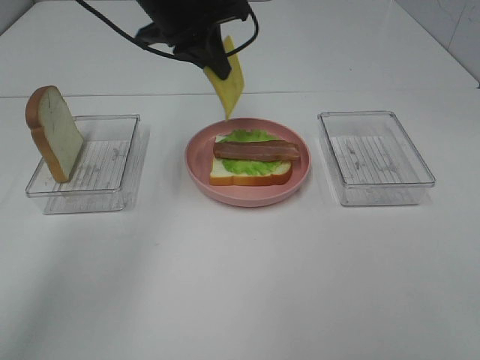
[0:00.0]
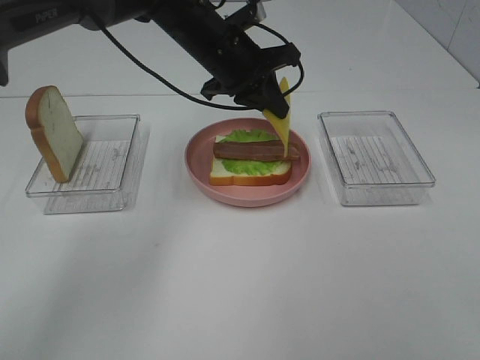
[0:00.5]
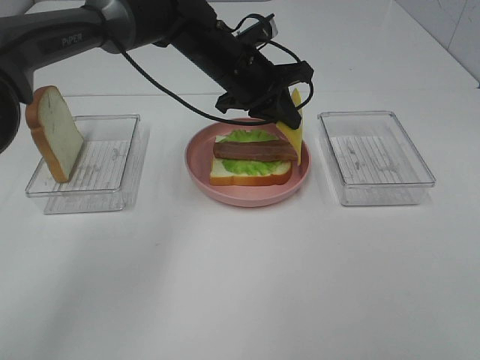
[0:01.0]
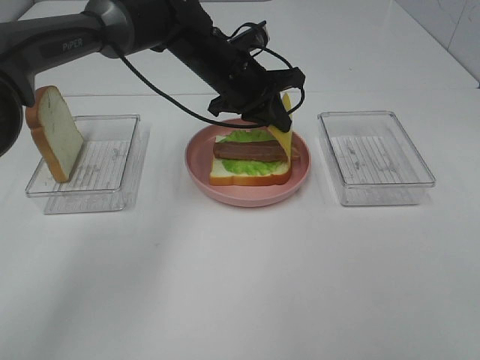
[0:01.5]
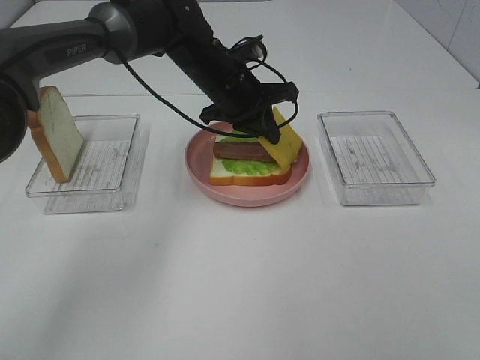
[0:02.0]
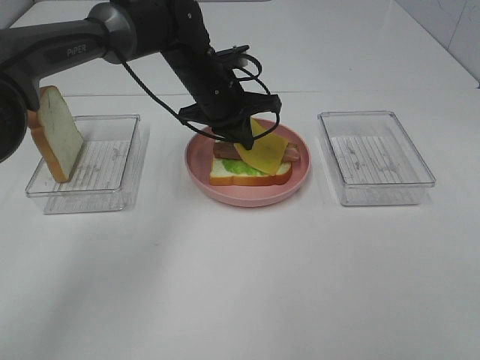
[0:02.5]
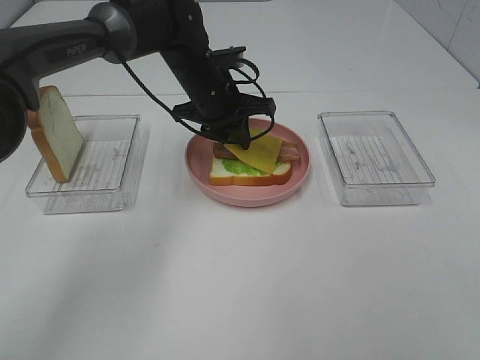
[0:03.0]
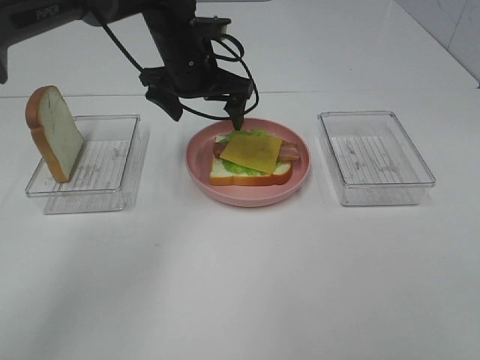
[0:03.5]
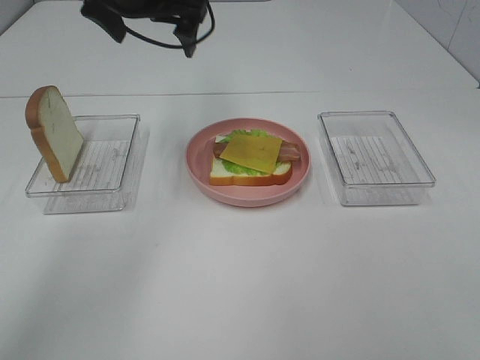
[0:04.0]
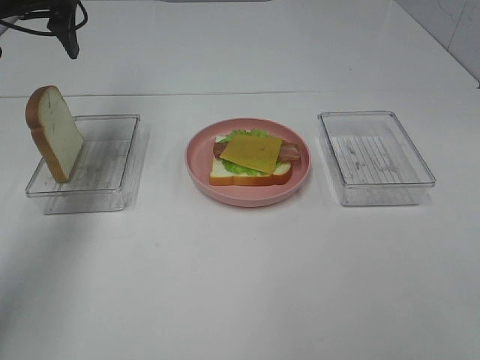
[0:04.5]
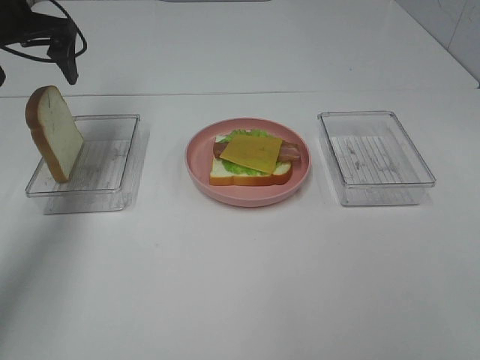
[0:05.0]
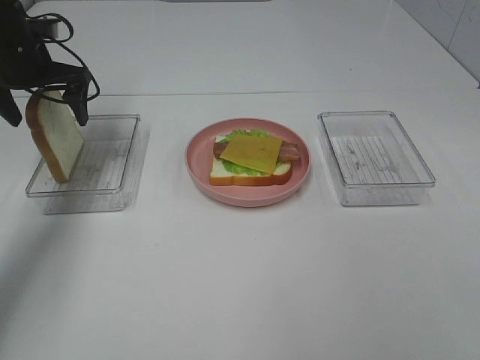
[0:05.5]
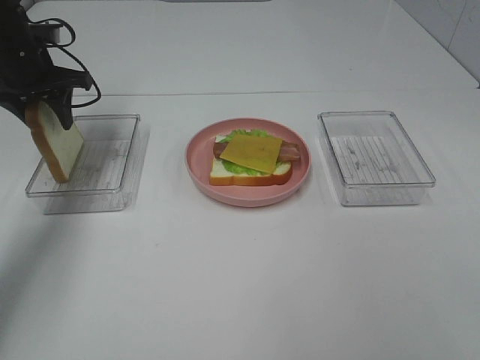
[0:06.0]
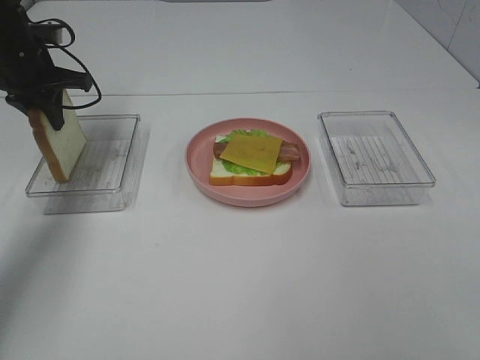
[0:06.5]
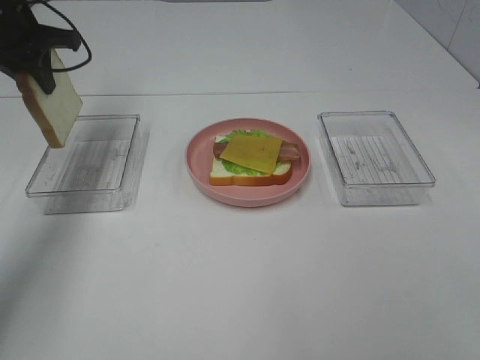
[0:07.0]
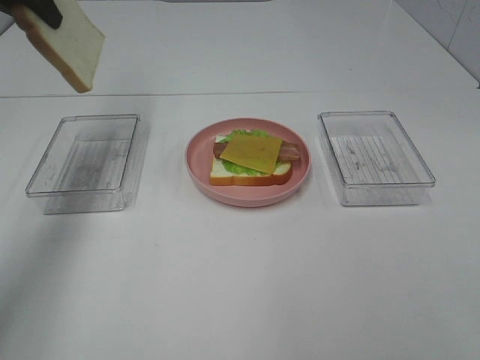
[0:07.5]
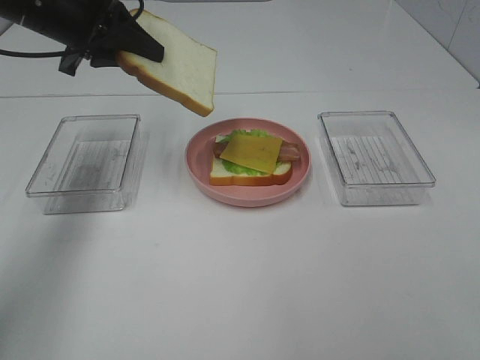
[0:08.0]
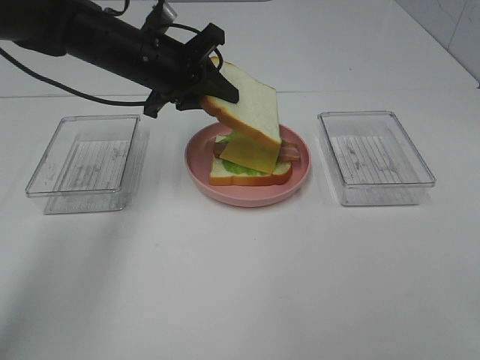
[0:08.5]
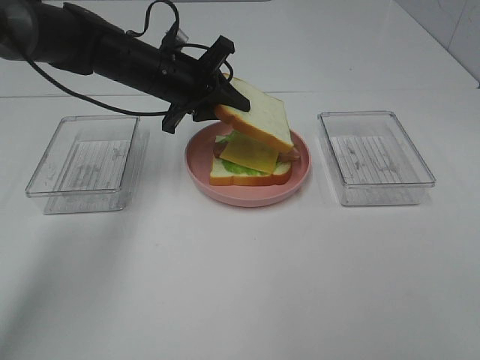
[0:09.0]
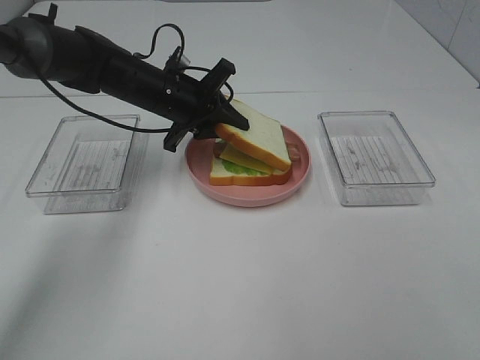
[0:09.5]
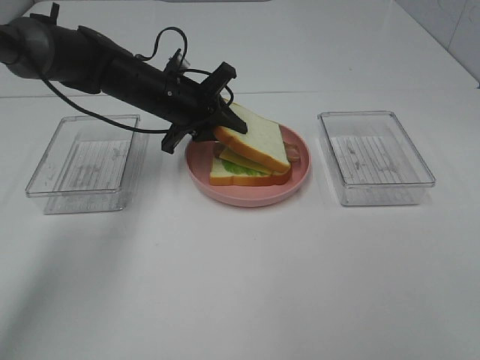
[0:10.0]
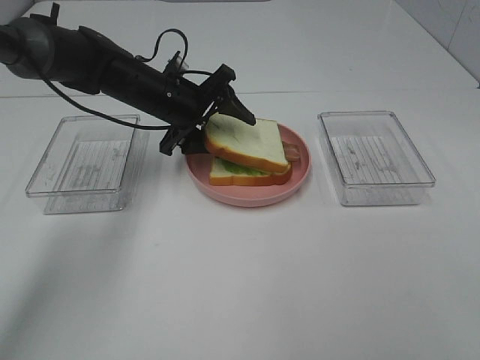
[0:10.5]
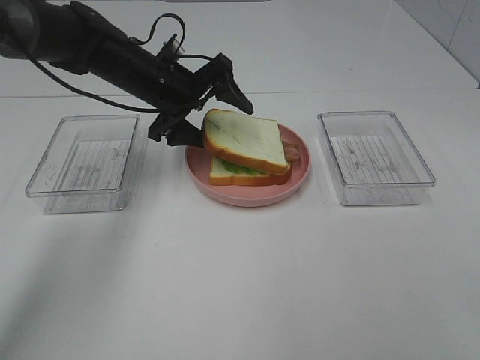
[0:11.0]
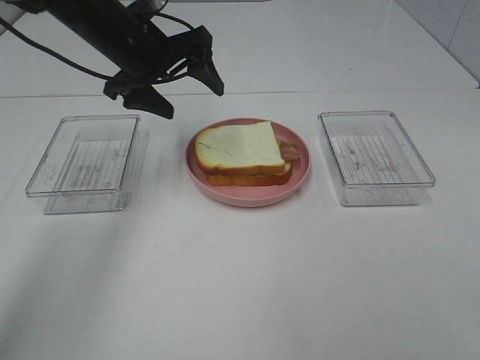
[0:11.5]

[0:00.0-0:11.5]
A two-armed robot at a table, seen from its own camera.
Task of the whole recording: Make sandwiches.
Step, 0:00.0 to 0:03.0: Left hand:place the cheese slice on top of the bacon.
Step, 0:03.5 to 0:06.5: Left hand:grab the bread slice.
Step, 0:07.0 to 0:11.0: Left hand:place the bread slice on the cheese slice.
0:00.0 to 0:02.0: The left gripper is displaced downward and to the right by roughly 15 cm.
0:02.0 to 0:04.0: The left gripper shifts some 20 cm upward and to the left, and opens up.
0:04.0 to 0:06.0: The left gripper moves to the left and downward, approximately 20 cm, and closes its fingers.
0:06.0 to 0:07.5: The left gripper shifts approximately 15 cm upward.
0:07.5 to 0:09.5: The left gripper travels downward and to the right by about 25 cm.
0:09.5 to 0:11.5: The left gripper moves upward, some 10 cm, and opens.

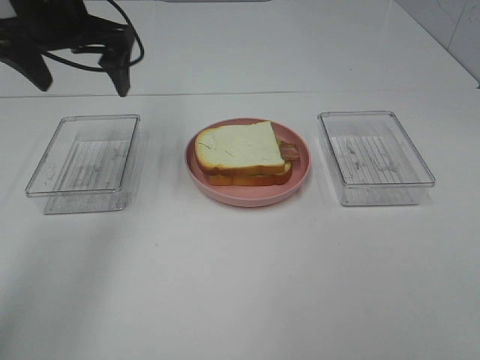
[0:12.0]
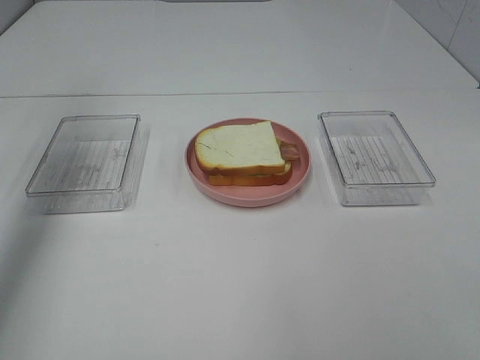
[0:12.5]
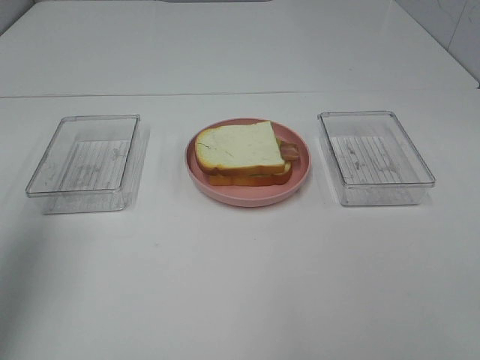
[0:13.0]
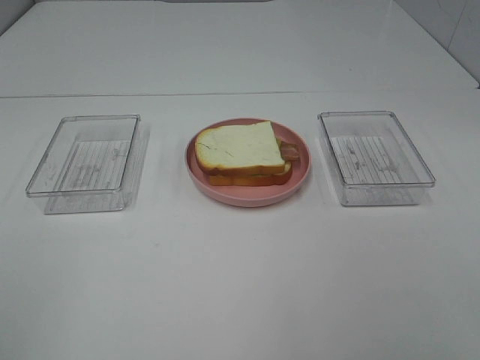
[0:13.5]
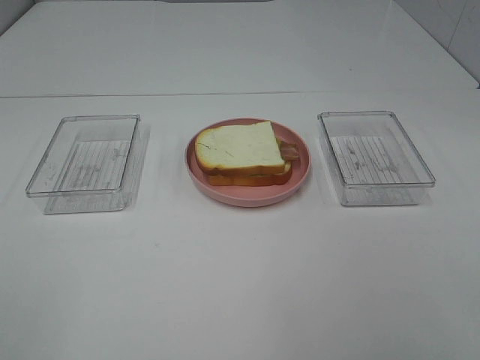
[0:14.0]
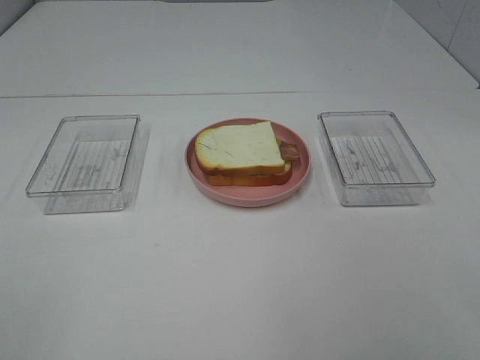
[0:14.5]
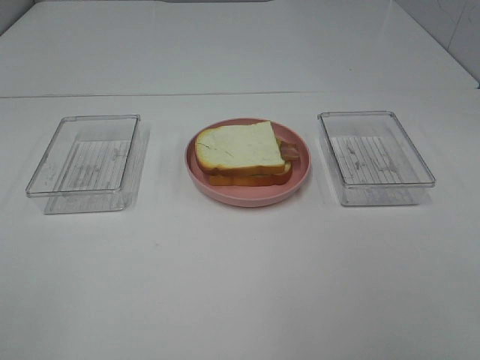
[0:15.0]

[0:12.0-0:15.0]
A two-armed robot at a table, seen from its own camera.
Task of the whole recording: Make sandwiches.
0:12.0 to 0:13.5: The left gripper heads backward, covering some 40 cm.

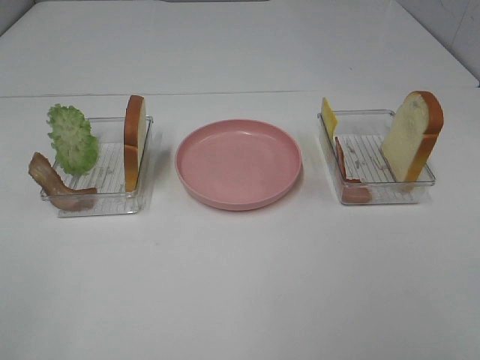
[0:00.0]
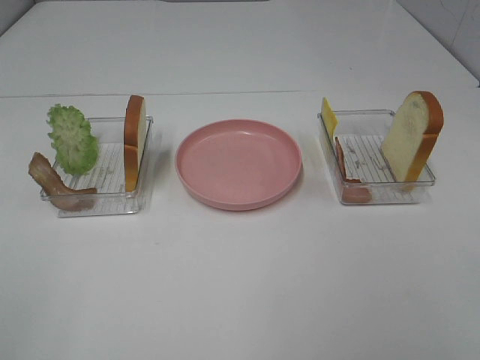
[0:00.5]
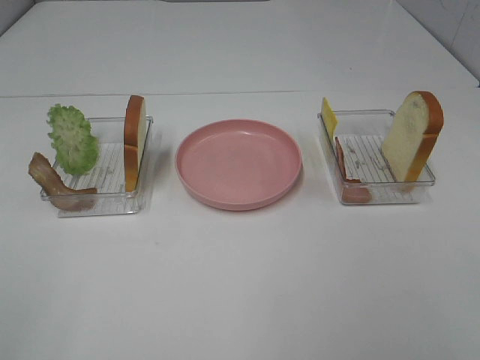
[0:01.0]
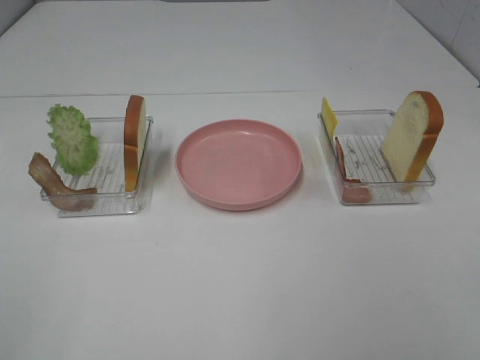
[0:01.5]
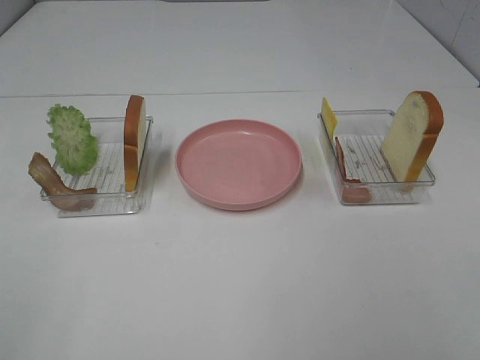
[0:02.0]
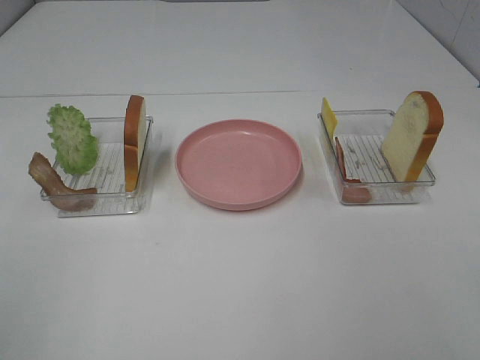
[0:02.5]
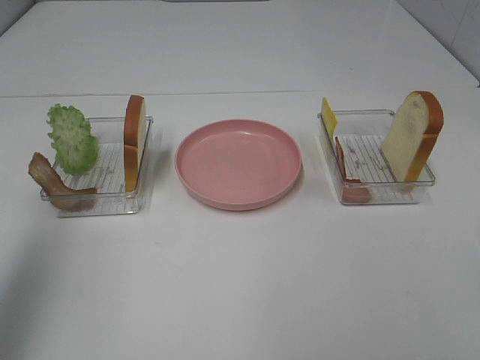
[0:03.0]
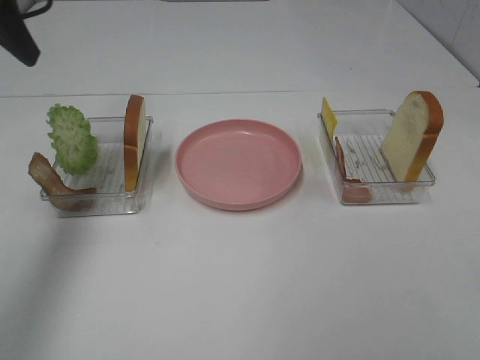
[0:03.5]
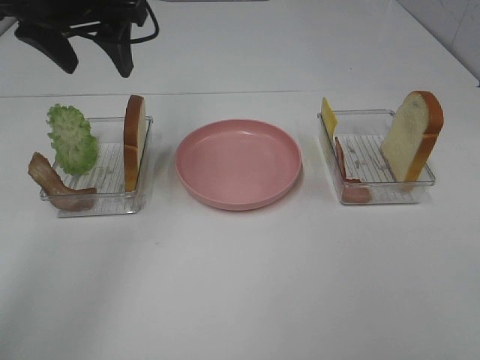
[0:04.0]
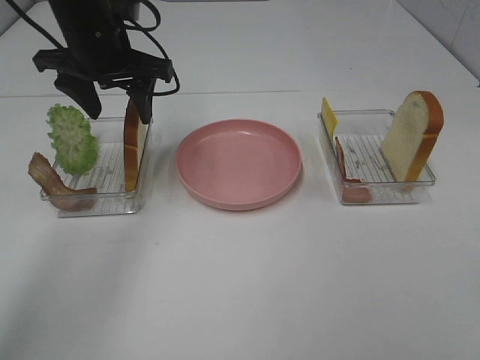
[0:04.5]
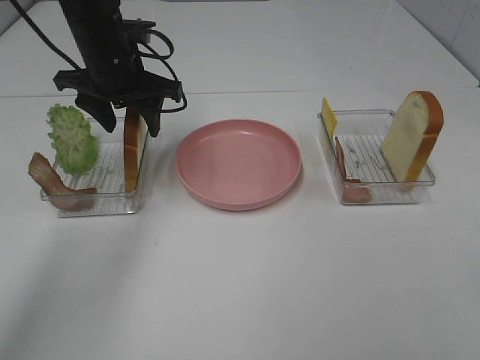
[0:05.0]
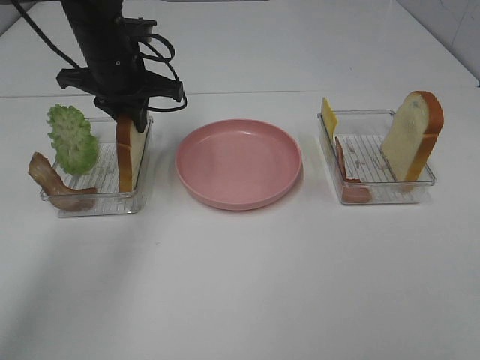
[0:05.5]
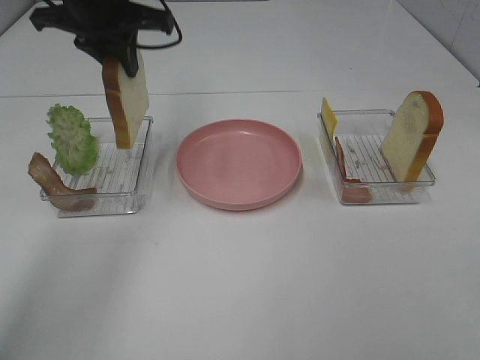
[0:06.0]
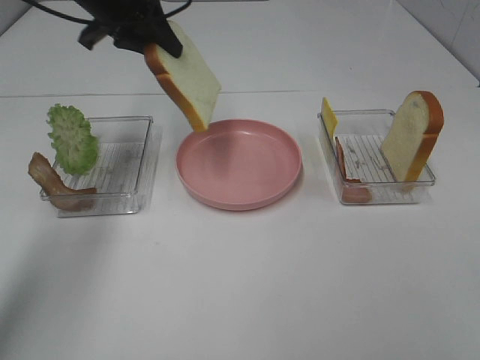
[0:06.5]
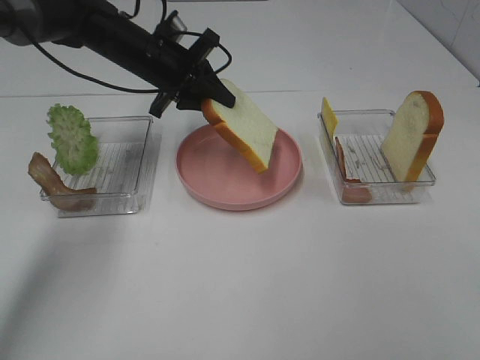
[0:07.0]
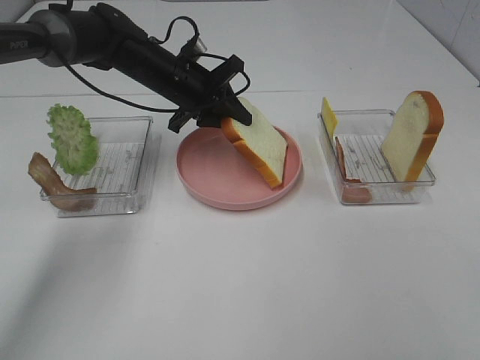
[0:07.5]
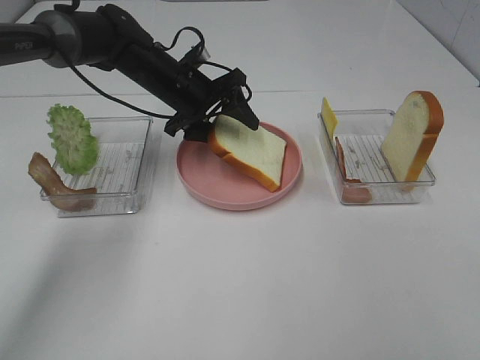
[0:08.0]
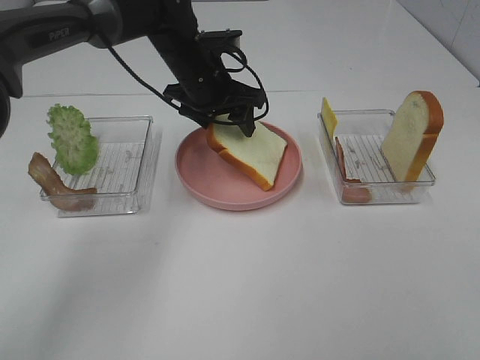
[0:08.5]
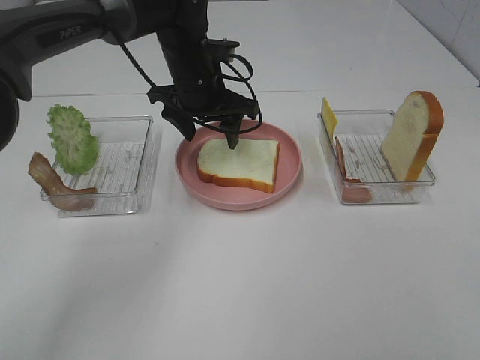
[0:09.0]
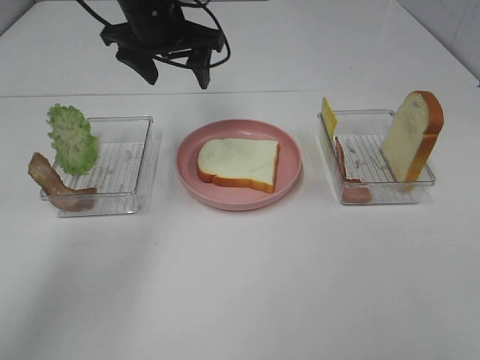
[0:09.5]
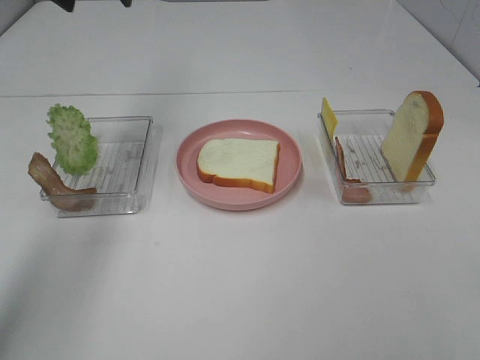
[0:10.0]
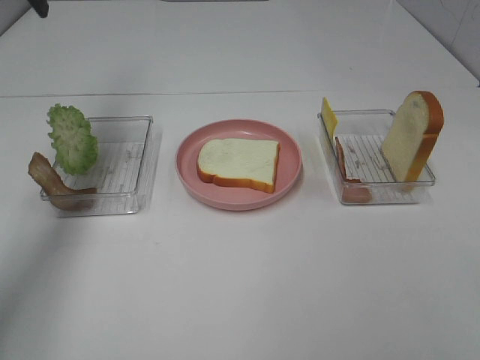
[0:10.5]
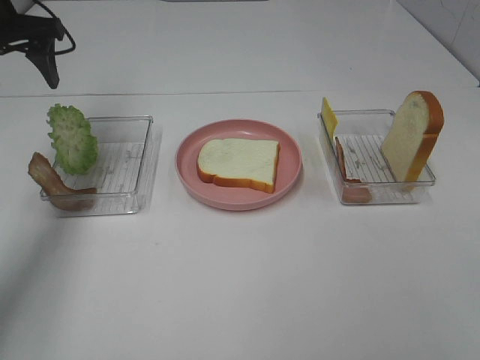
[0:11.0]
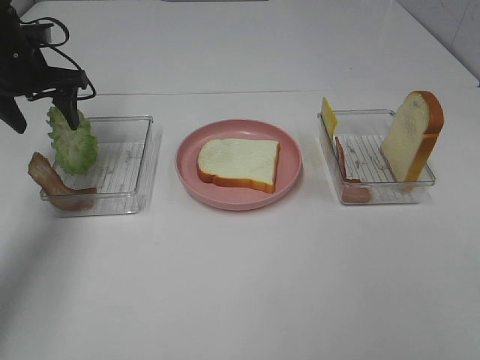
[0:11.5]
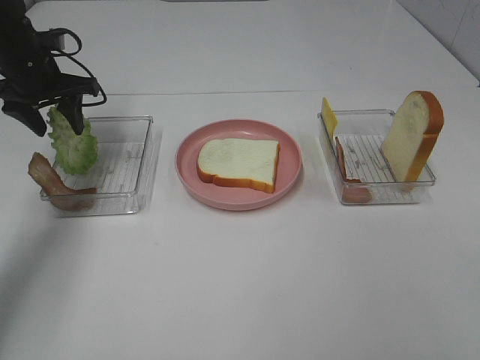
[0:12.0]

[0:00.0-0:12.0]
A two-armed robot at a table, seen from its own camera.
Task of the whole recording: Make sandwiches.
Step, 0:00.0 to 0:05.5: Left hand:grab the bread slice.
Step, 0:06.0 to 0:09.0: Left hand:place the bread slice on the plate.
0:00.0 to 0:02.0: The two grippers keep their place.
0:02.0 to 0:04.0: The left gripper is displaced forward by approximately 40 cm.
0:04.0 to 0:06.0: The left gripper moves some 10 cm downward and comes back, and closes its fingers.
0:06.0 to 0:08.0: The left gripper is displaced downward and to the right by roughly 15 cm, and opens its fingers.
0:08.0 to 0:10.0: The left gripper is displaced upward and to the left by about 25 cm.
0:10.0 to 0:12.0: The left gripper moves downward and to the left, roughly 20 cm.
